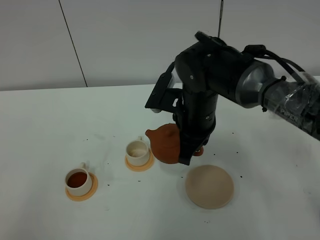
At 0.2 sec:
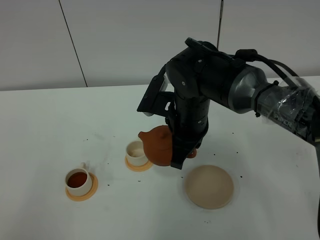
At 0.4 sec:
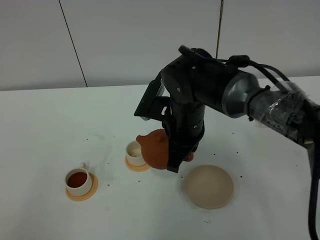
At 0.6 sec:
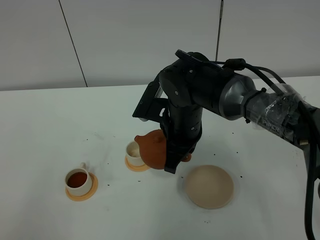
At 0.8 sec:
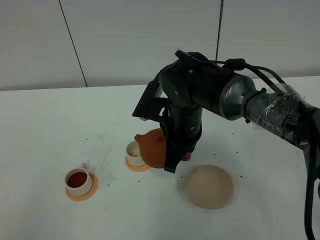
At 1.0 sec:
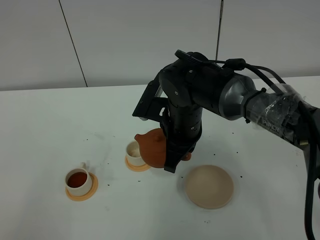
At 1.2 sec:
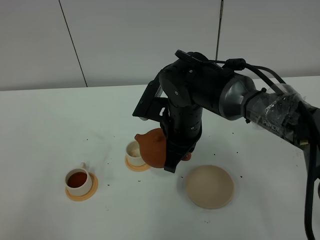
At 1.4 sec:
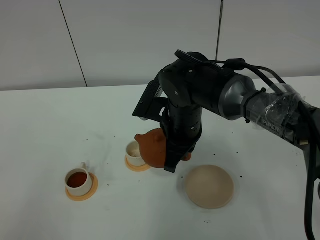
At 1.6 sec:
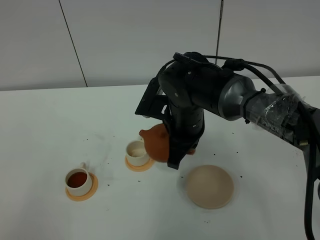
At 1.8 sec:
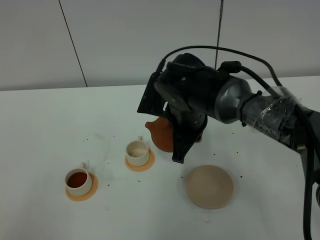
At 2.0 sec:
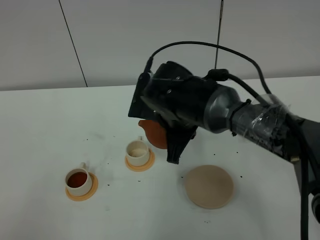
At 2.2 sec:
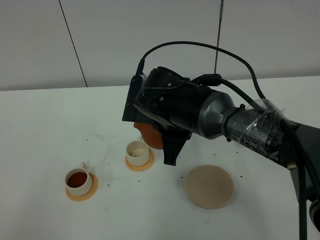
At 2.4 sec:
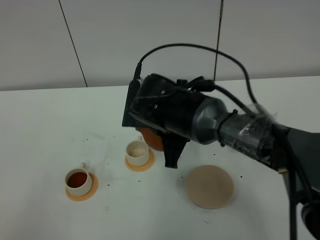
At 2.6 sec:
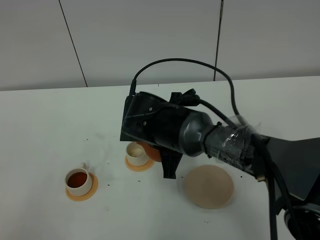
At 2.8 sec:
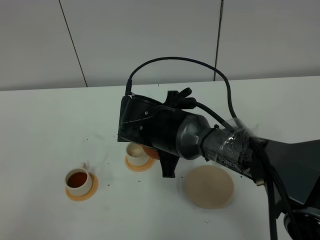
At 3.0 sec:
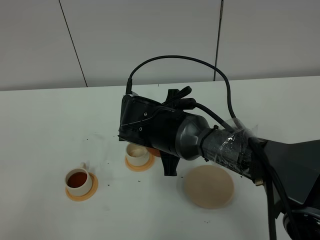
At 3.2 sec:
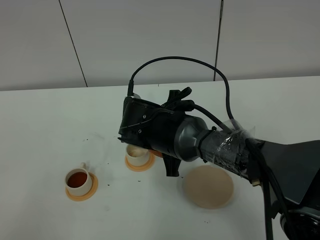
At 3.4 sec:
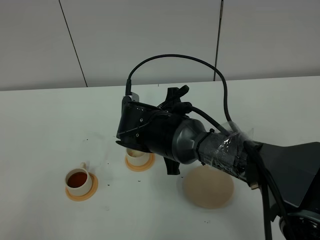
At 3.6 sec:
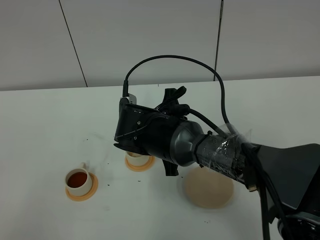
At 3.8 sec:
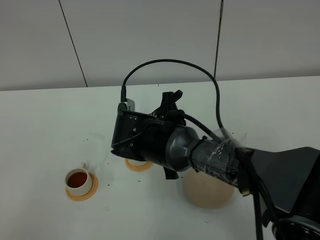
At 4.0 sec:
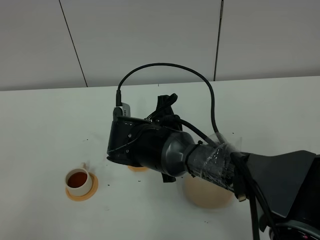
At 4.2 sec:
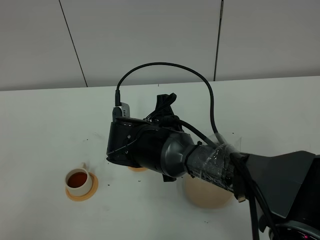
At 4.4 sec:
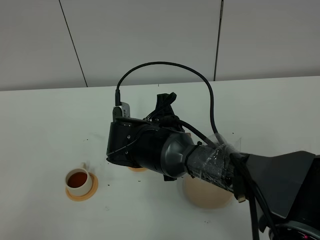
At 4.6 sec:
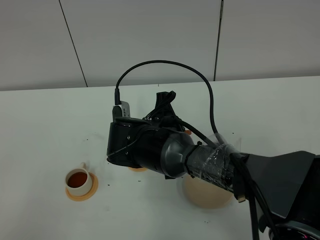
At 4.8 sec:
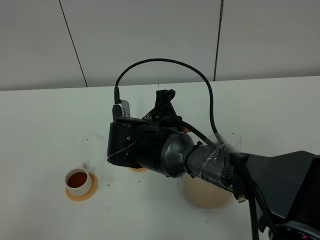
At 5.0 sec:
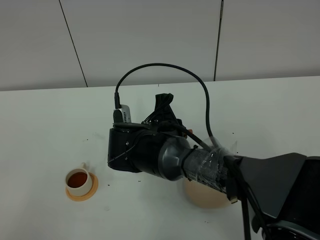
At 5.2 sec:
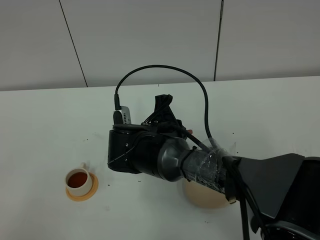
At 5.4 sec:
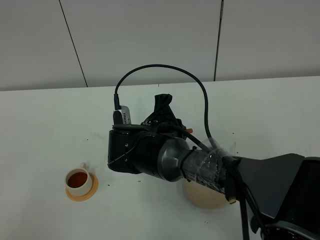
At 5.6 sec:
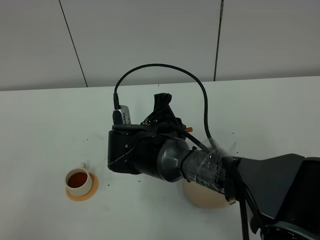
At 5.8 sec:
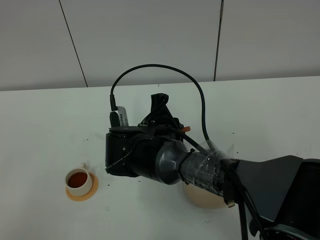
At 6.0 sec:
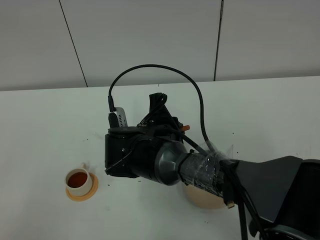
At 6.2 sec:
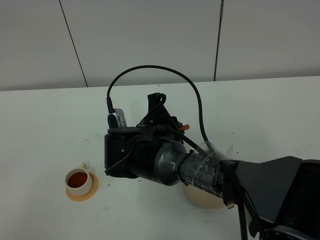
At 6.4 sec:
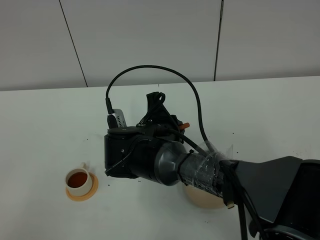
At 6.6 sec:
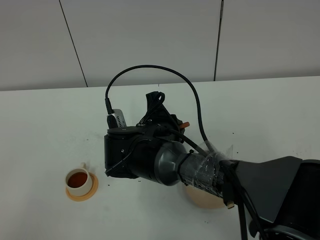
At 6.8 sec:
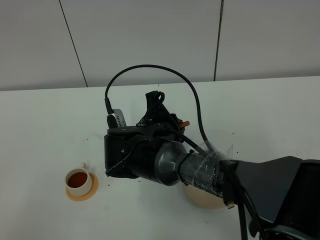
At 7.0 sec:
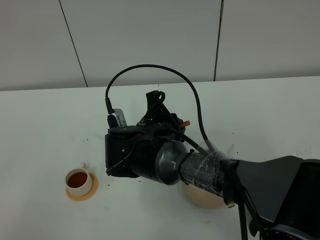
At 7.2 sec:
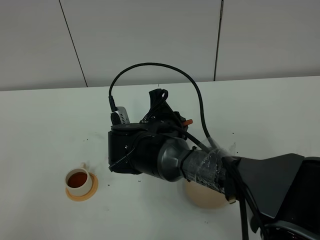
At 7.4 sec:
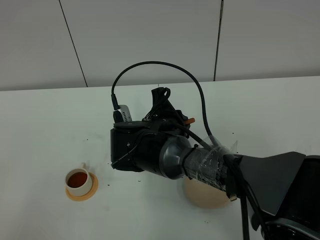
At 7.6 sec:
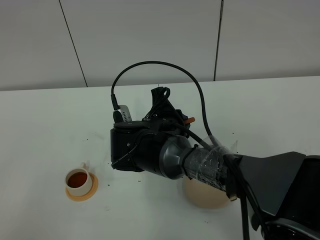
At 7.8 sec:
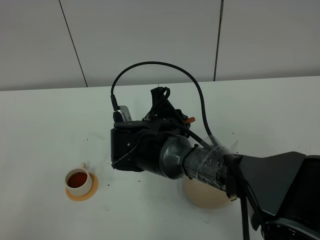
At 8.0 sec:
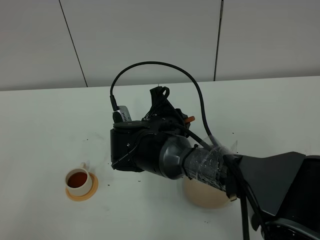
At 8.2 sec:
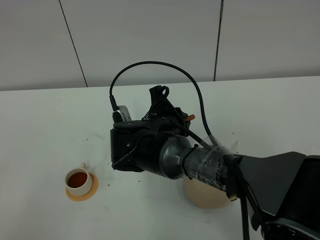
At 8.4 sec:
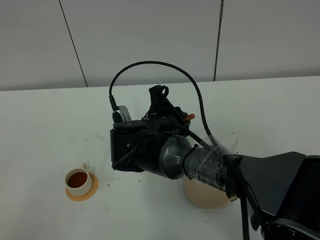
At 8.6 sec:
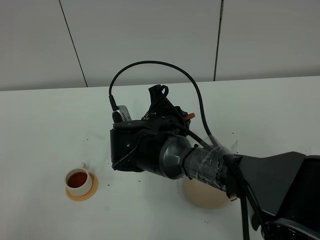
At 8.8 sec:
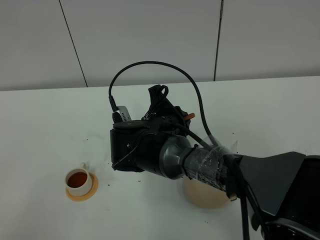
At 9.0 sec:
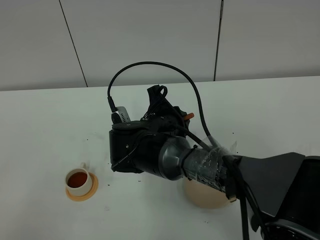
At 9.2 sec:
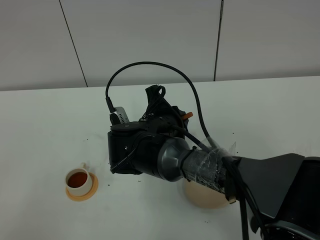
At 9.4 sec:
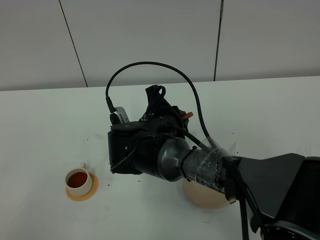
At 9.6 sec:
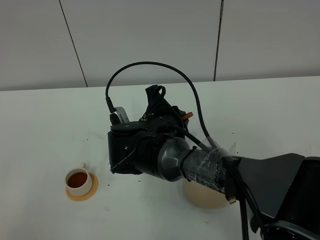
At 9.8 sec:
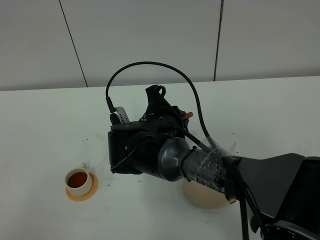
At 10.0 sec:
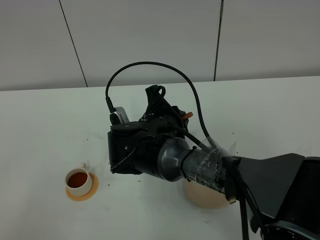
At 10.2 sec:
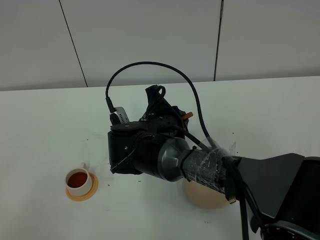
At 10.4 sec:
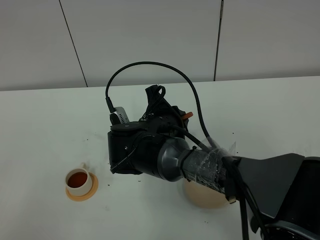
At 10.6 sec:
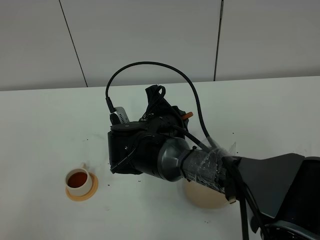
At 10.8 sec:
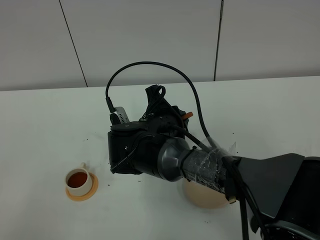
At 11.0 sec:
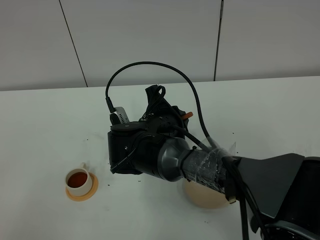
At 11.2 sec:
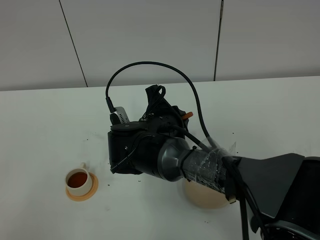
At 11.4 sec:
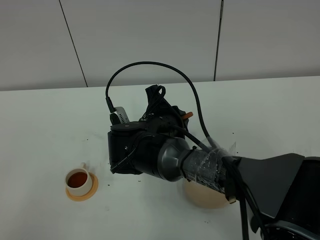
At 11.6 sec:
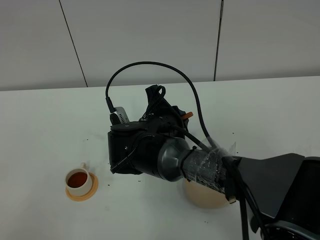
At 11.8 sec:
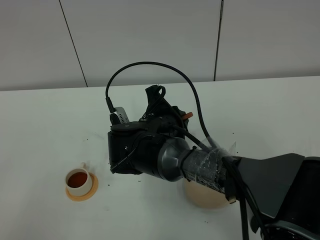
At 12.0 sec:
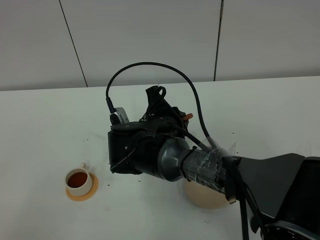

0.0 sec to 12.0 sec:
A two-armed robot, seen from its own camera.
Task of the whole recording: grasp the brown teapot and pour the tea into the two white teacups one by one, put the brown teapot back in its original place.
0.0 sec to 1.6 sec: The grippers make only small movements.
1.6 sec to 3.0 sec: The right gripper changes place by approximately 5 cm.
3.0 sec to 6.0 sec: The grippers move only a little.
6.0 sec to 7.6 sec: There are only small adjustments of the grippers.
7.6 sec to 9.0 sec: Both grippers stay put.
9.0 sec to 12.0 sec: Neither gripper changes place.

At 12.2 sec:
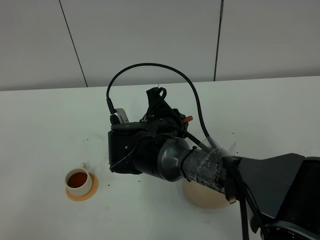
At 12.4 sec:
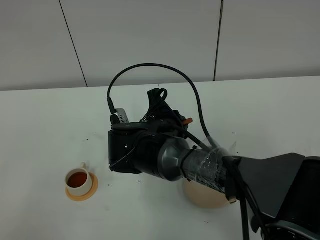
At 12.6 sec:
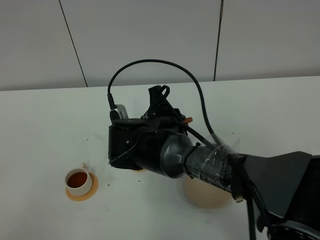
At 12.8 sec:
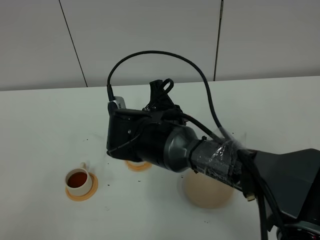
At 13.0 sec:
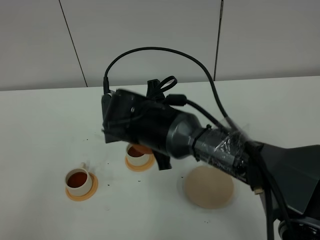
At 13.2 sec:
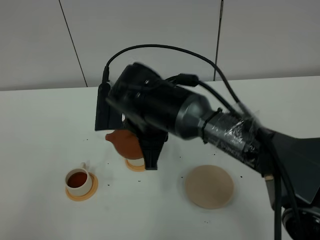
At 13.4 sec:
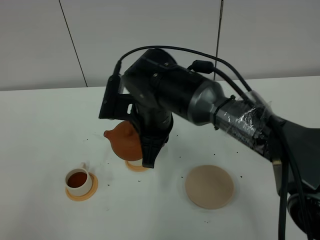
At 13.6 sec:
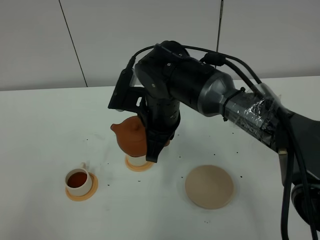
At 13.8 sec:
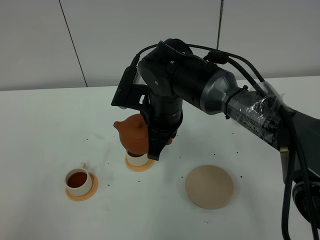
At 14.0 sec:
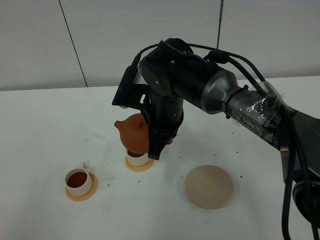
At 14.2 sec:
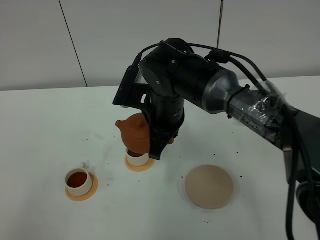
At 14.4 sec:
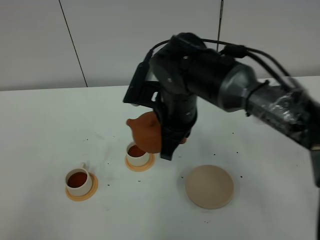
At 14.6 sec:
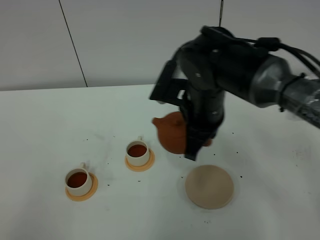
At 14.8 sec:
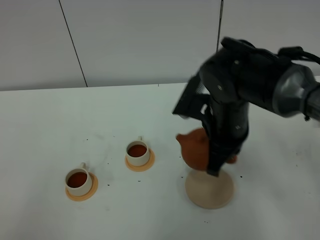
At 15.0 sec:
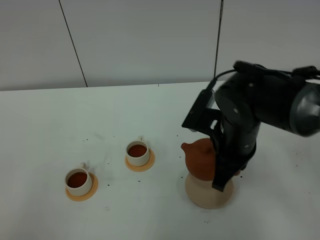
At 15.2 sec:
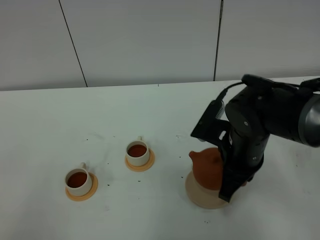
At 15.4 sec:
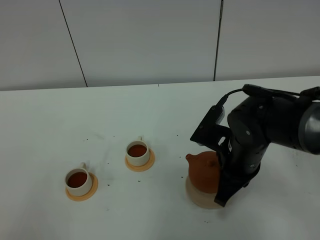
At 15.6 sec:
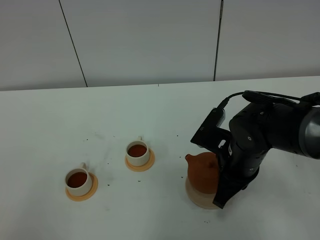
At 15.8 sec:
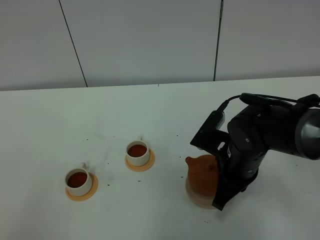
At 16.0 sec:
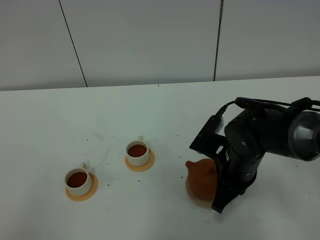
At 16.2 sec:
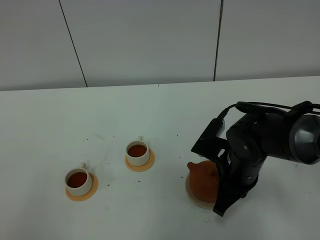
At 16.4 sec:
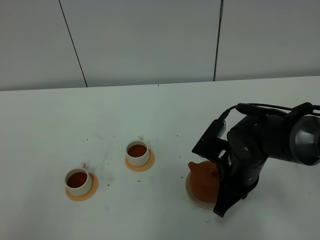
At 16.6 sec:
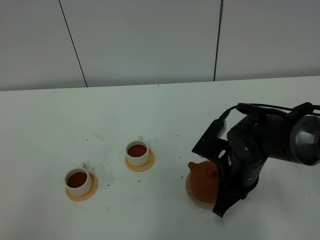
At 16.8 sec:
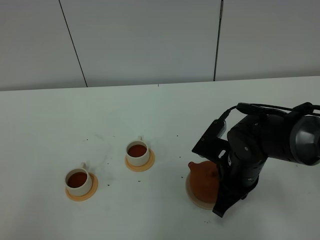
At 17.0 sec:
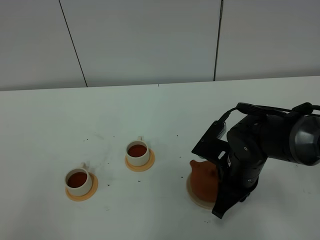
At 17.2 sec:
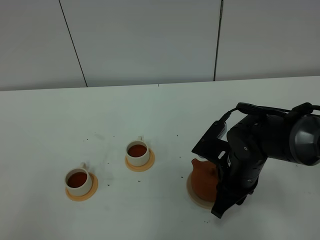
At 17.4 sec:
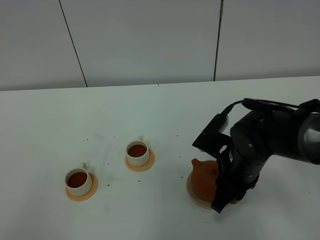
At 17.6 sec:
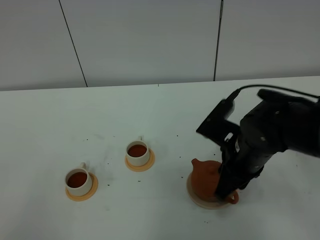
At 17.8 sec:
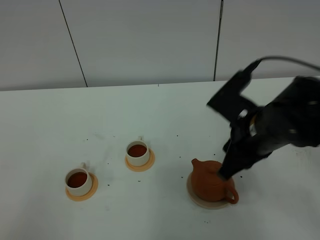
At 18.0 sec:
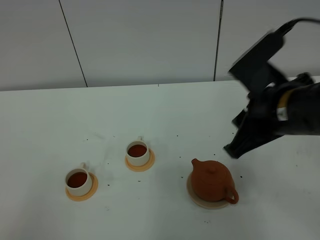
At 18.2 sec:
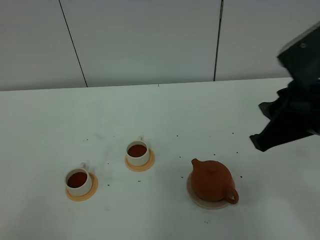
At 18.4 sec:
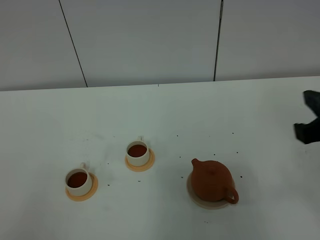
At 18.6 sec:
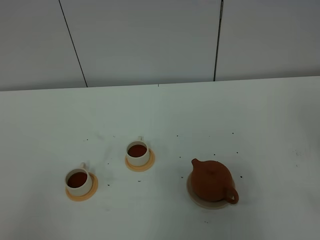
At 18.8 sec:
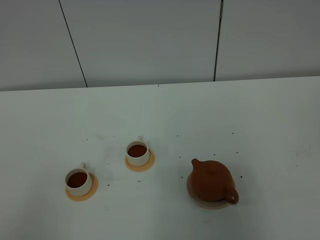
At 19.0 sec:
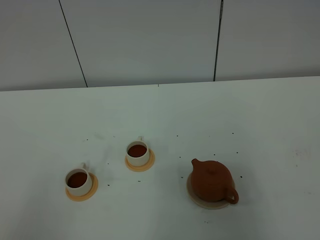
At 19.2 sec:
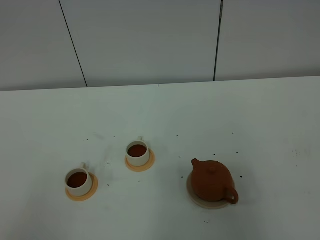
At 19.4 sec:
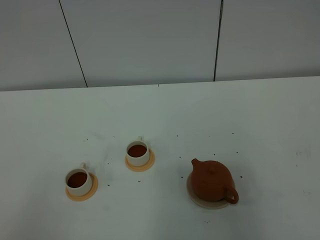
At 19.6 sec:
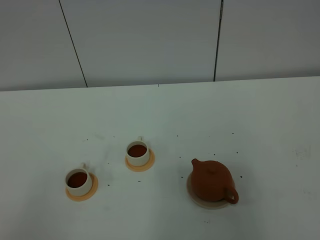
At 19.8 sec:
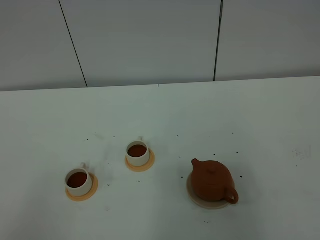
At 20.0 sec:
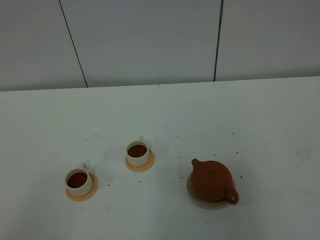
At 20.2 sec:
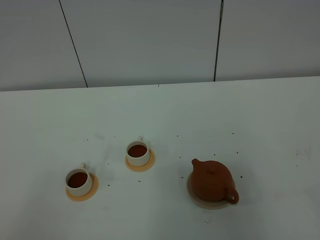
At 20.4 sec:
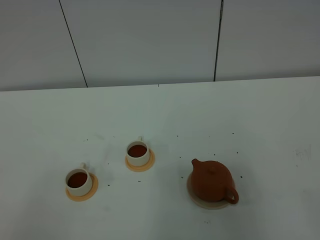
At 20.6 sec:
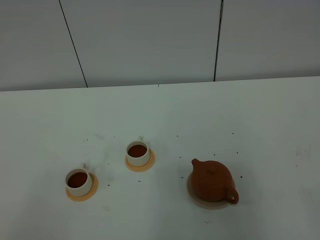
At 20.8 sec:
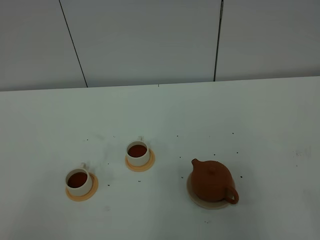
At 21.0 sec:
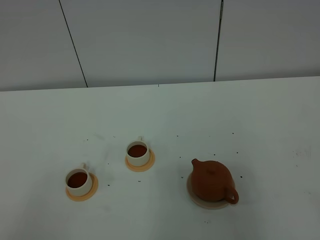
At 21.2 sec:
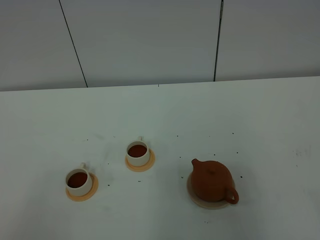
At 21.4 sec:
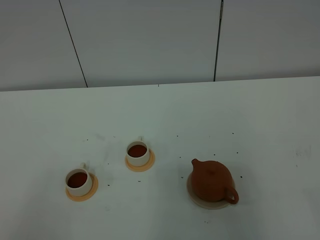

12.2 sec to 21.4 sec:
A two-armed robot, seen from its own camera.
Task of the whole recording: grasp the brown teapot and pour the tea into the two white teacups one by one, put the brown teapot back in its original place.
12.2 sec to 13.8 sec: The right gripper heads upward, covering roughly 5 cm.
13.8 sec to 15.2 sec: The right gripper is displaced to the right and backward by some 15 cm.
15.2 sec to 16.8 sec: The grippers make only small movements.
16.8 sec to 18.4 sec: The right gripper heads upward, to the right and backward, covering approximately 25 cm, and opens its fingers.
18.4 sec to 19.8 sec: The right gripper goes approximately 25 cm backward and to the right.
